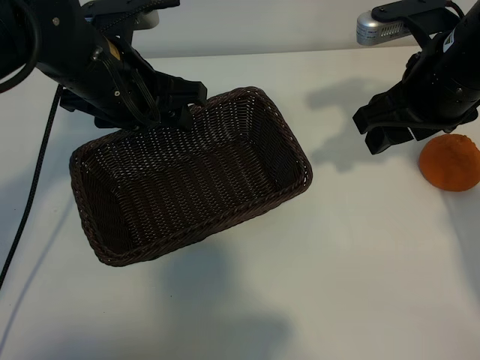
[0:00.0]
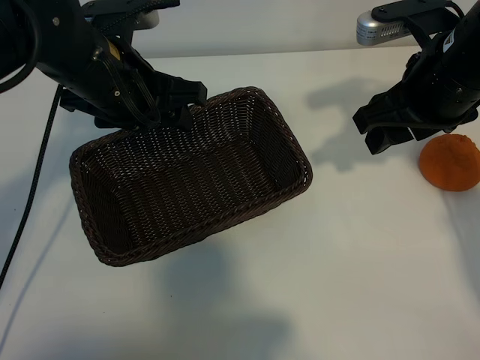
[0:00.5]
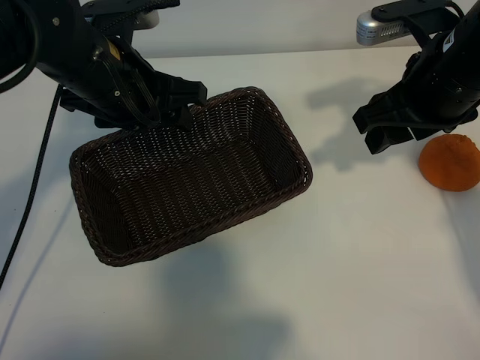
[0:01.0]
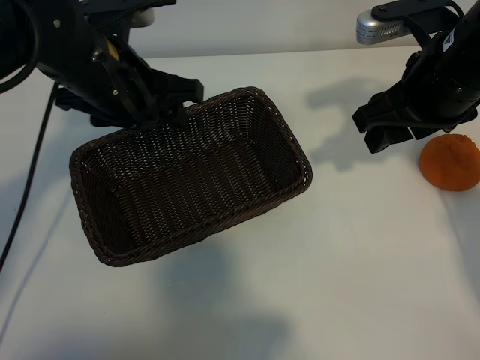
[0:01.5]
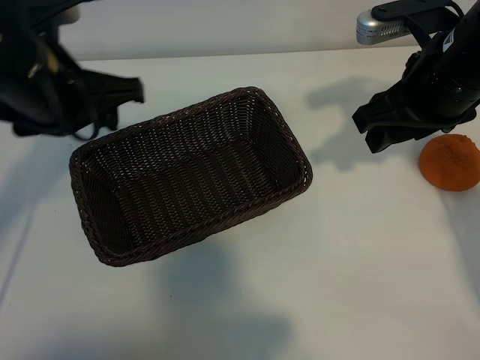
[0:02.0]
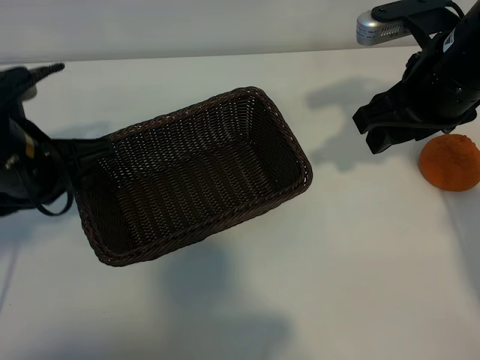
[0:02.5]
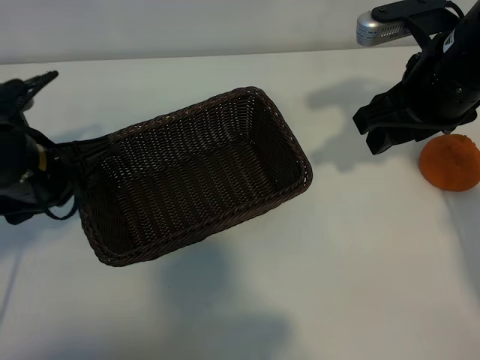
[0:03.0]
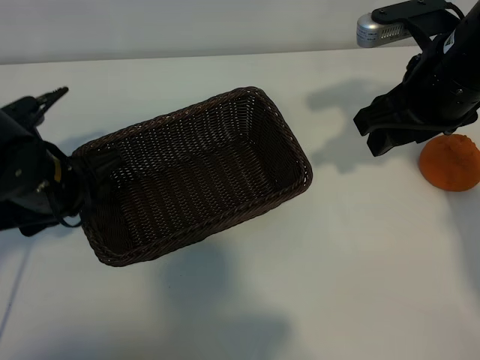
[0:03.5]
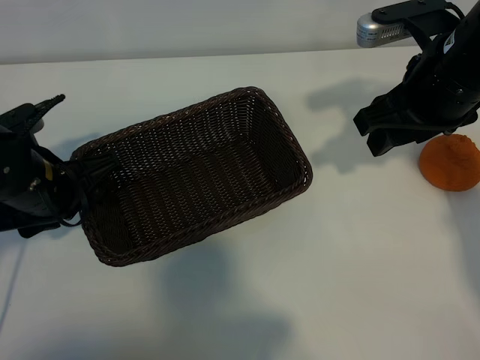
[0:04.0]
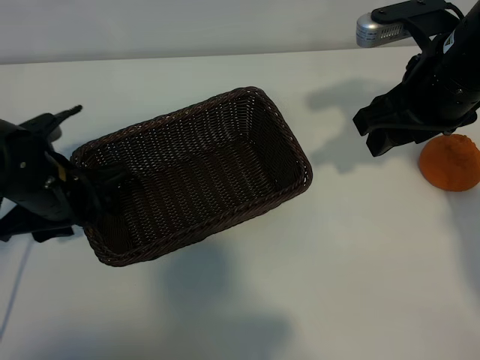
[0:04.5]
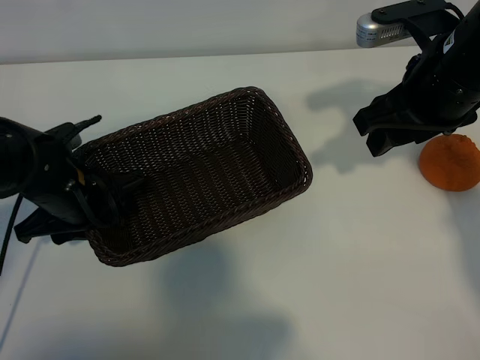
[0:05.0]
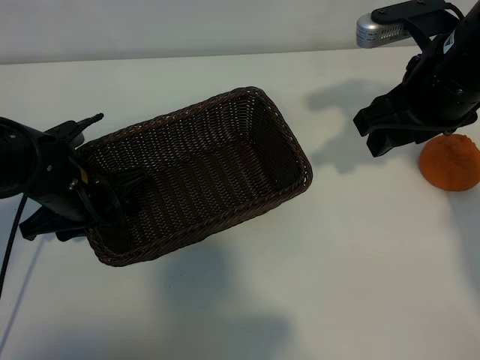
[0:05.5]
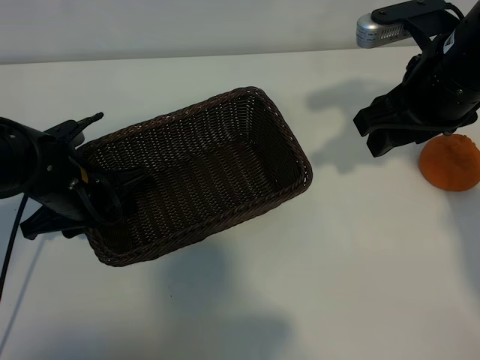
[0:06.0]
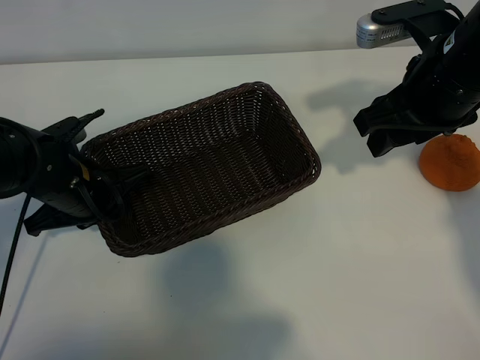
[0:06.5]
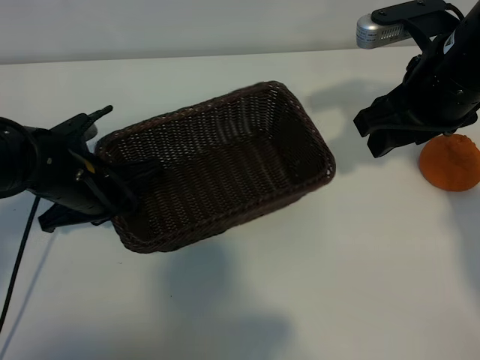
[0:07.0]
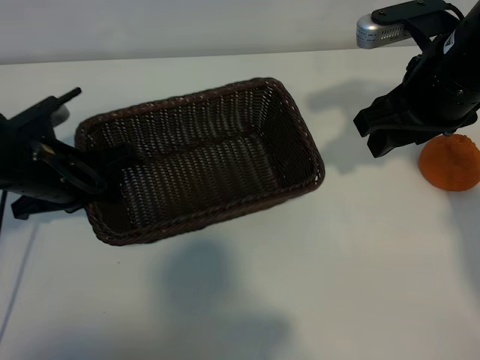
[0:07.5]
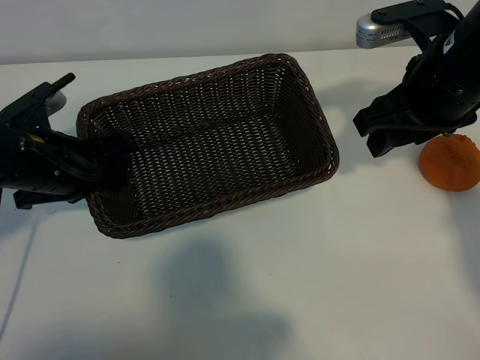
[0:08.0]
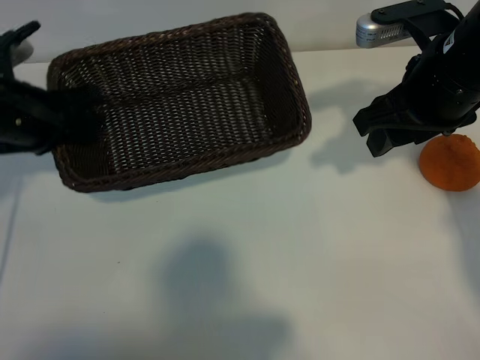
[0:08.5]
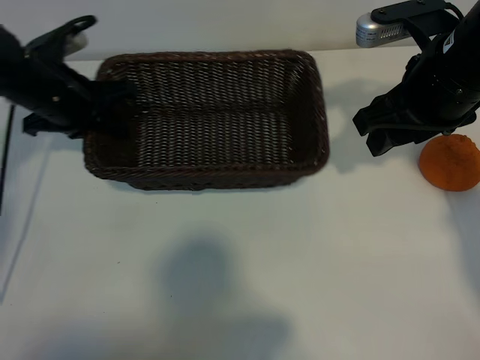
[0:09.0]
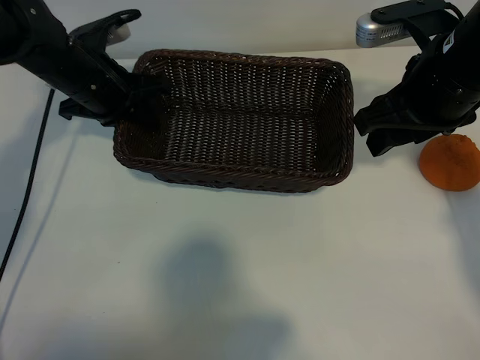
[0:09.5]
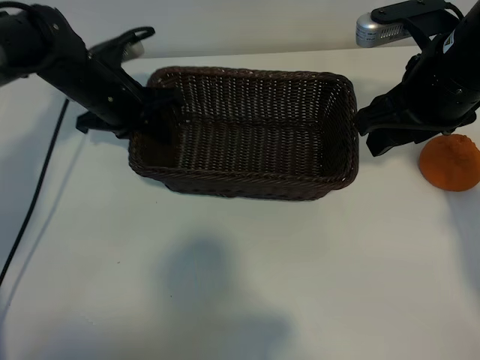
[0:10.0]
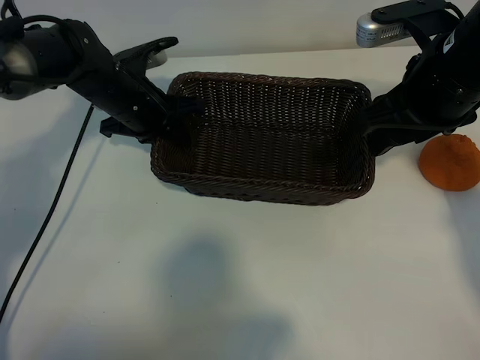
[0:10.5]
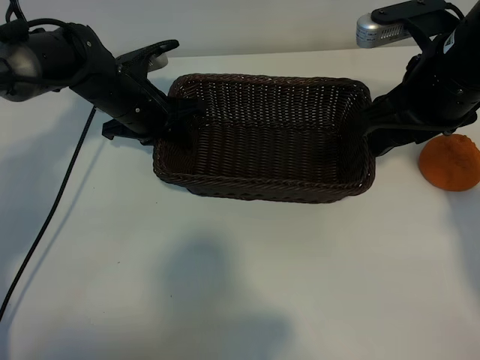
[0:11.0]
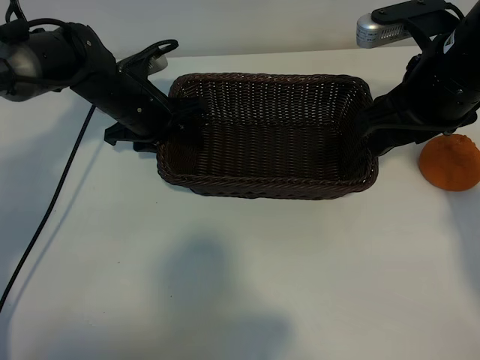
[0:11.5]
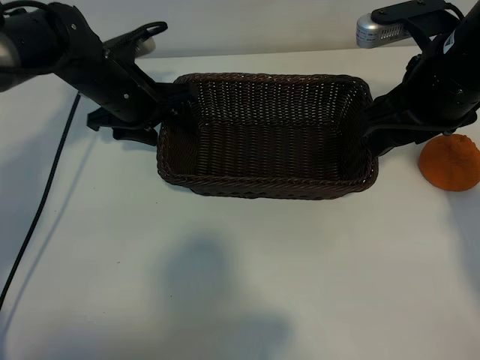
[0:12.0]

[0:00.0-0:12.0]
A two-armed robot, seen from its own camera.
Task of the whole recording: pick up the orange and put it into the basket.
Step, 0:01.5 to 0:06.0: Grasp the basket with left gripper.
Step, 0:06.5 to 0:11.0: Place the basket in the center of view with left gripper.

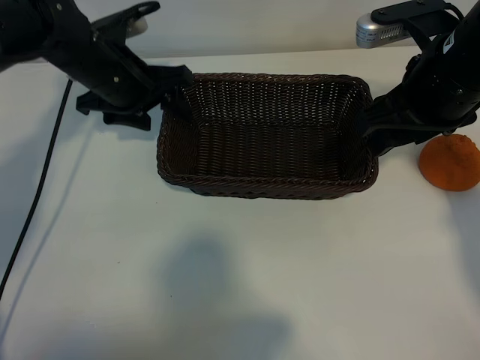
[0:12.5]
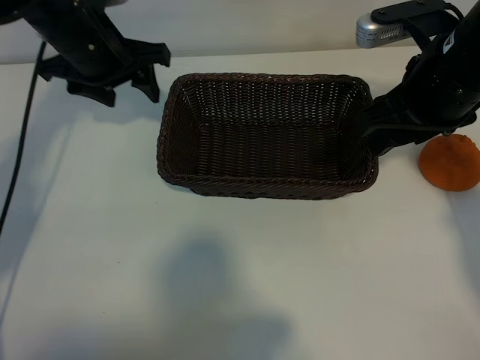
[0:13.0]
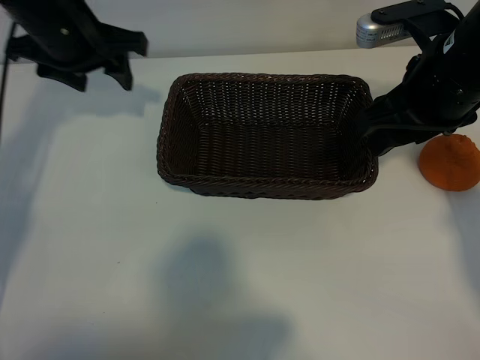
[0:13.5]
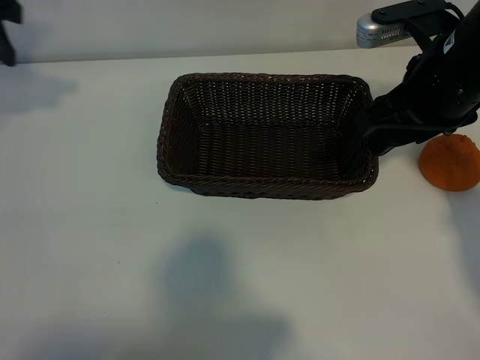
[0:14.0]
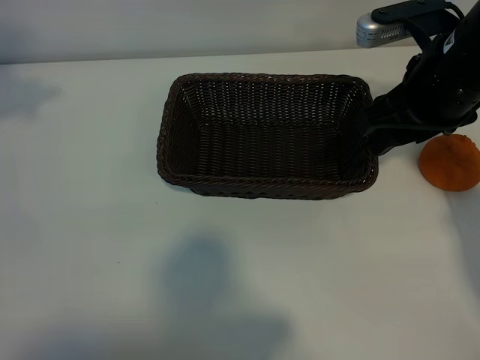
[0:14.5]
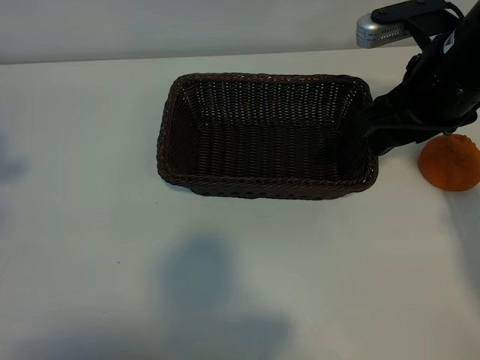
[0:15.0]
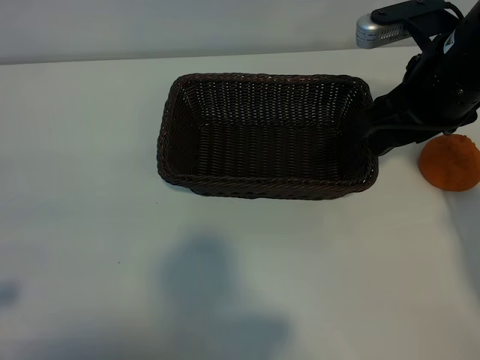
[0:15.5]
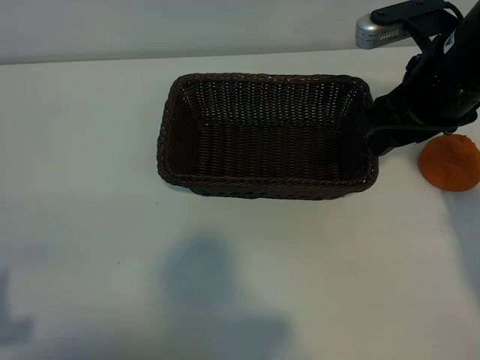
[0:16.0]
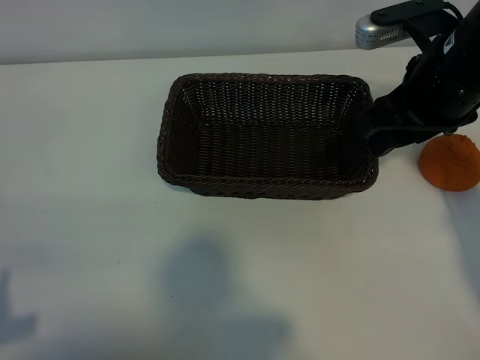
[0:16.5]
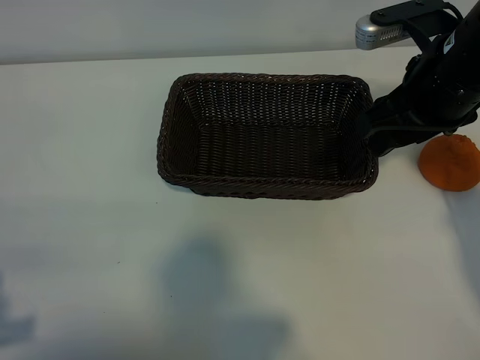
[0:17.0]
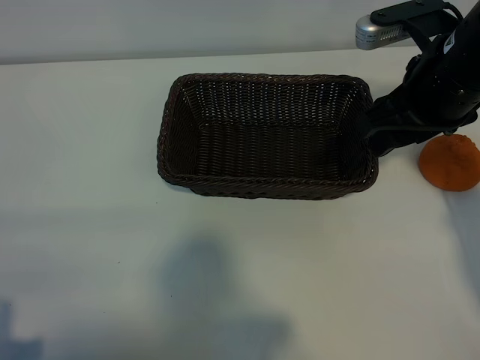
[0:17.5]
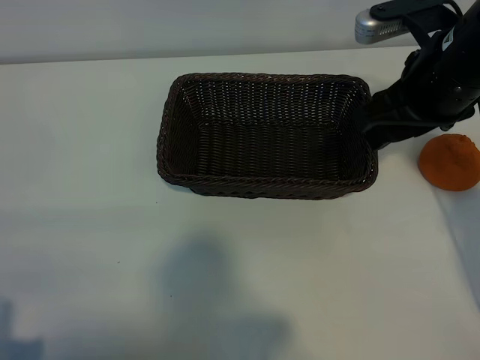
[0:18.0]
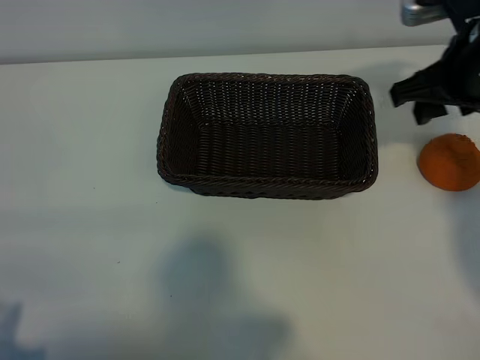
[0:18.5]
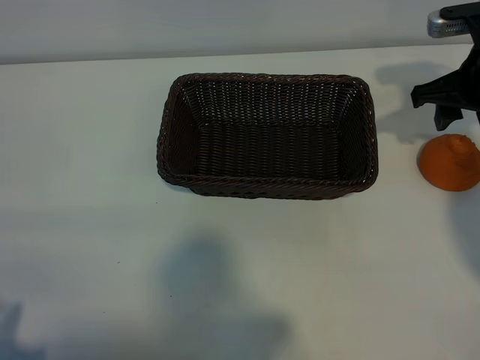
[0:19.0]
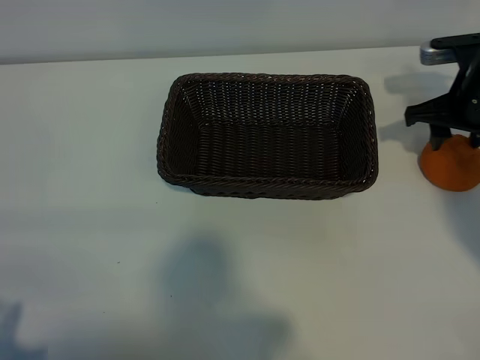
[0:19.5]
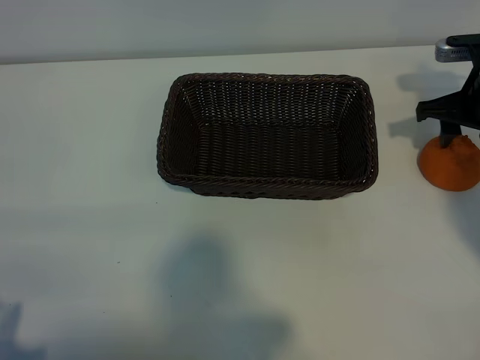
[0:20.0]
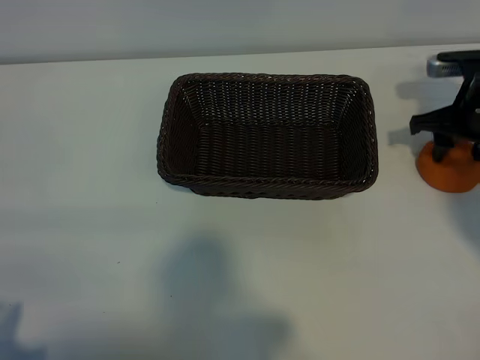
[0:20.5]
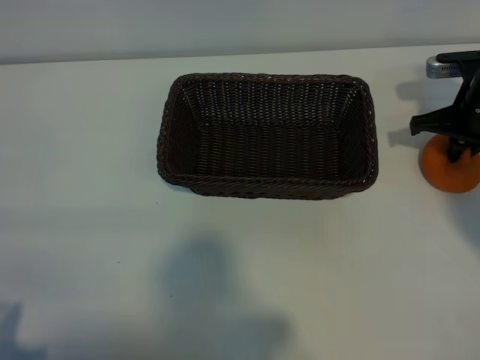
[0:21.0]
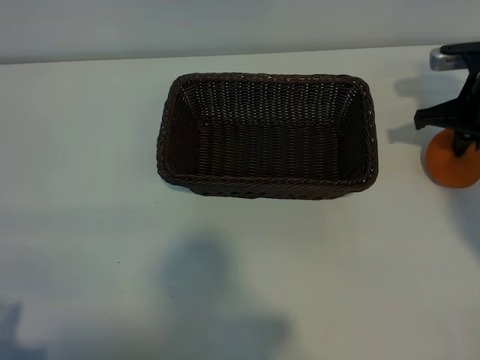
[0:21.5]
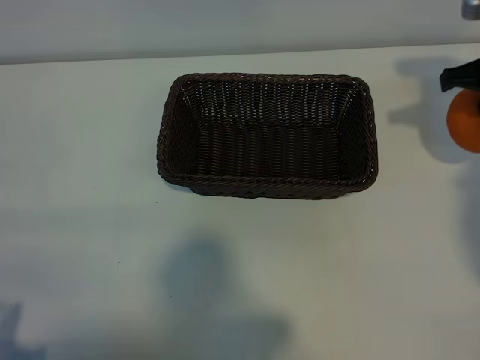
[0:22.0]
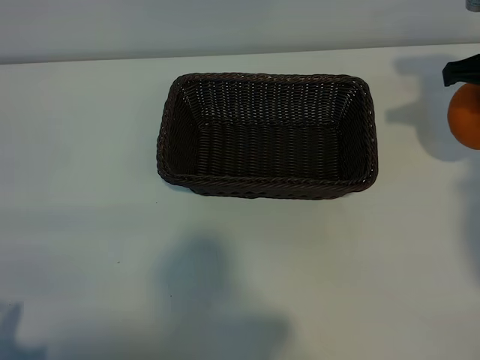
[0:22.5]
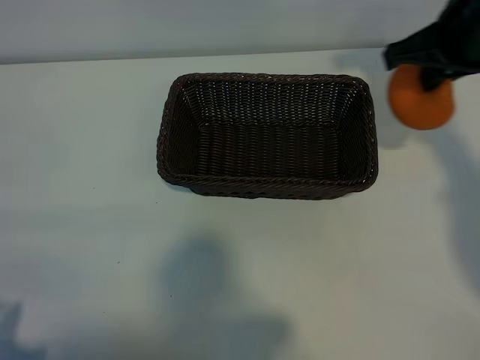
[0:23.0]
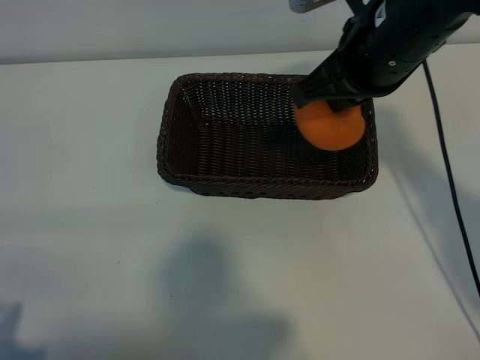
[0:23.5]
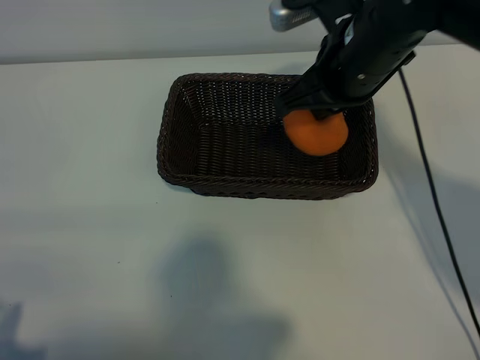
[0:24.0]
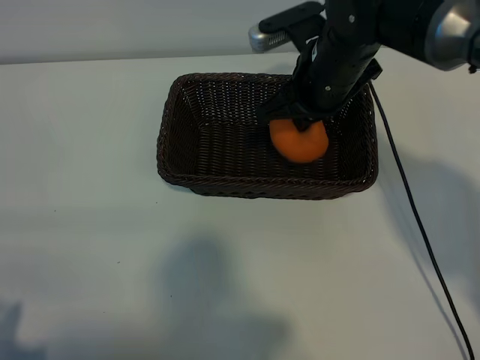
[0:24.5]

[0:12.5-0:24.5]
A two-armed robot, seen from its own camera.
Task of the whole recording: pick up the orange and put it into the basket.
Step, 0:12.5 to 0:21.0: Grasp the orange with right gripper.

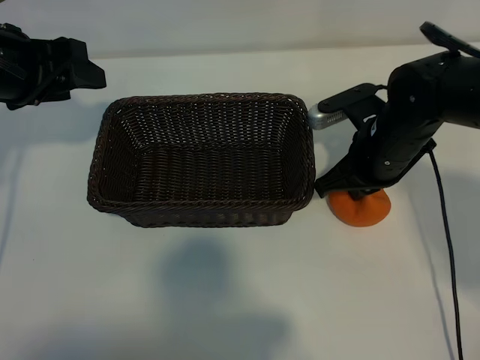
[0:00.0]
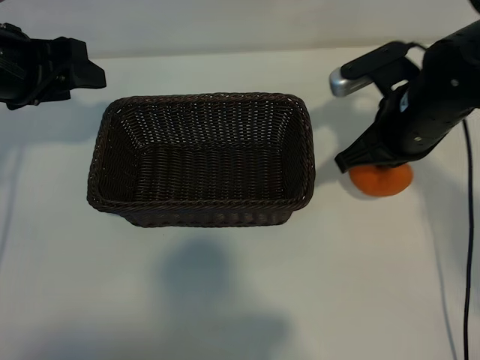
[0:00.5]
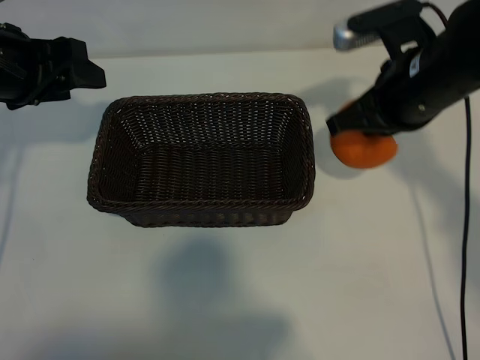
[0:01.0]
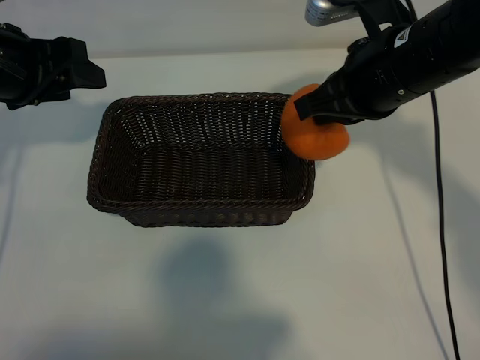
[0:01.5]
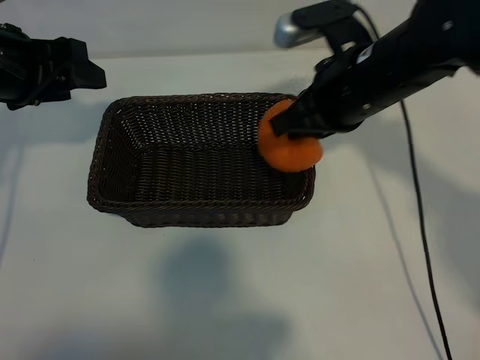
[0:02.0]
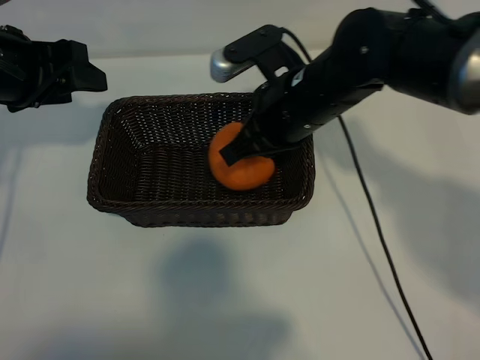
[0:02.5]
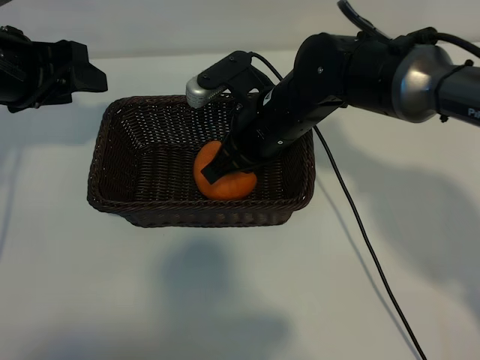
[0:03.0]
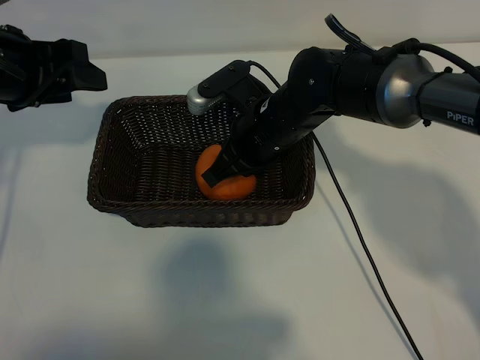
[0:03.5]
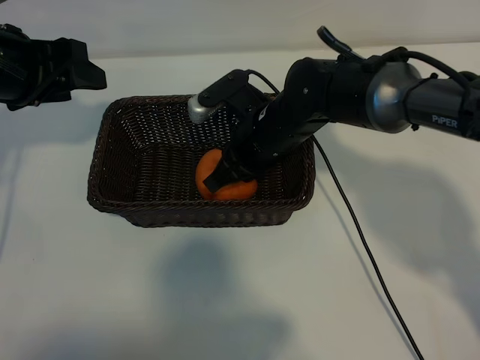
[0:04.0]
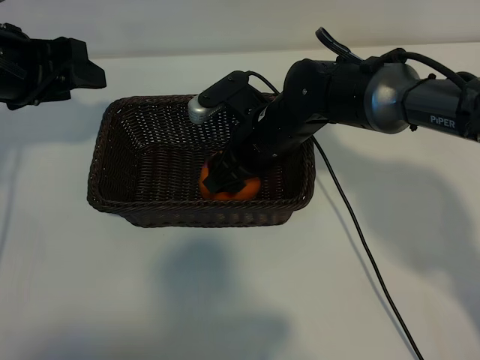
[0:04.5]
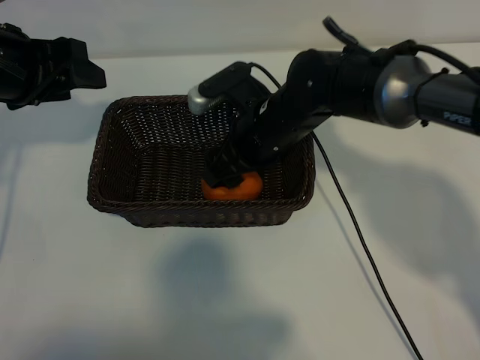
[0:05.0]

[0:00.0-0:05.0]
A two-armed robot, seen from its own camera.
Task of the whole recording: pick up the orange and put it into the basket.
Step, 0:00.0 to 0:04.5: Place the orange in the basket with right gripper.
